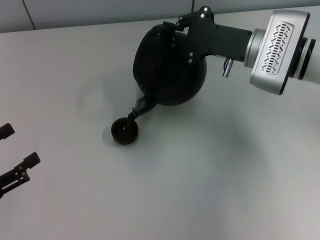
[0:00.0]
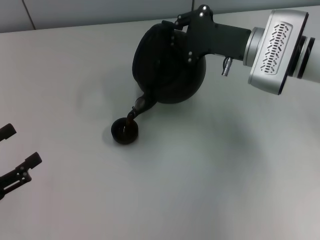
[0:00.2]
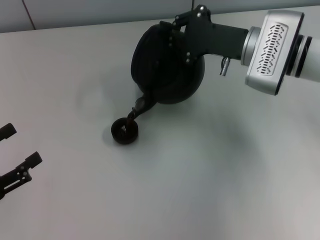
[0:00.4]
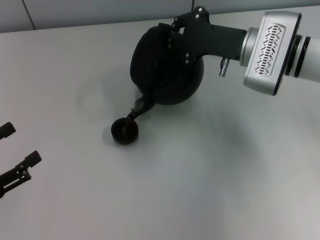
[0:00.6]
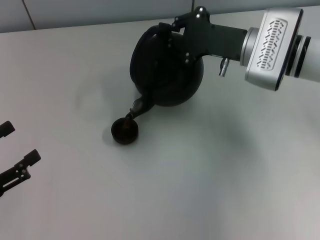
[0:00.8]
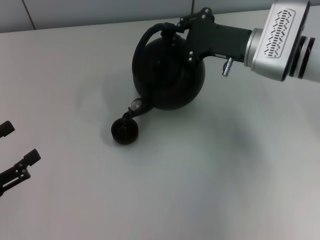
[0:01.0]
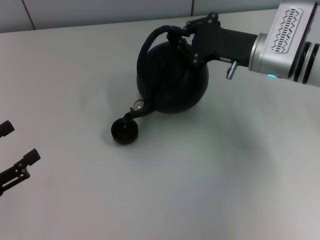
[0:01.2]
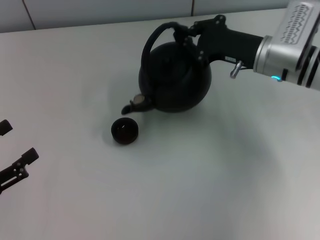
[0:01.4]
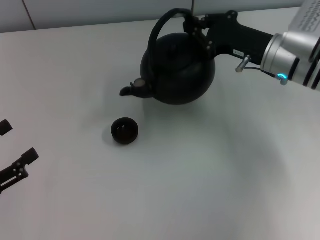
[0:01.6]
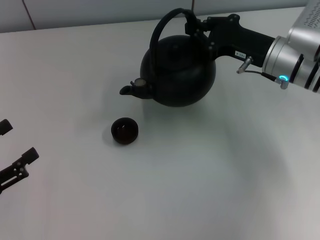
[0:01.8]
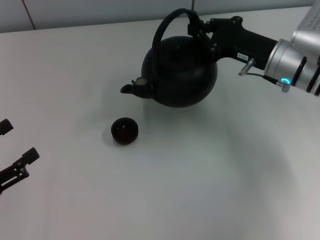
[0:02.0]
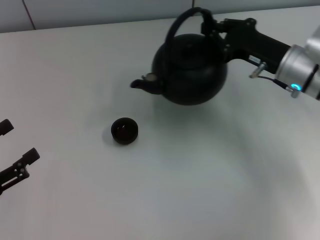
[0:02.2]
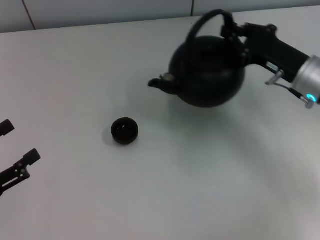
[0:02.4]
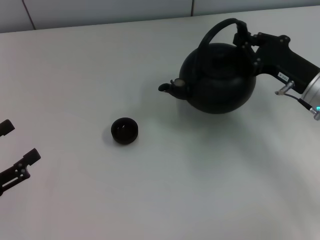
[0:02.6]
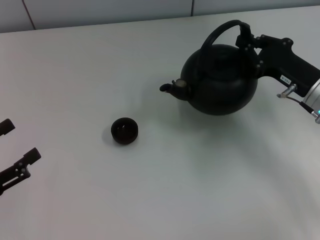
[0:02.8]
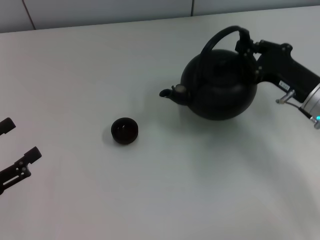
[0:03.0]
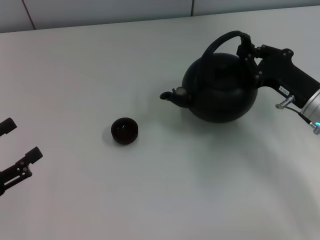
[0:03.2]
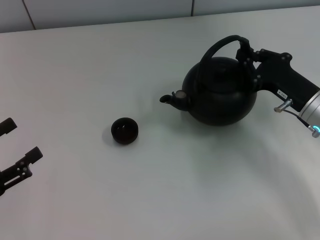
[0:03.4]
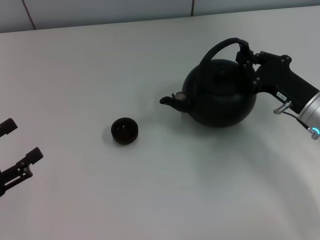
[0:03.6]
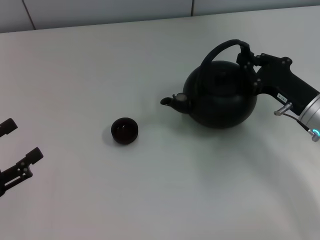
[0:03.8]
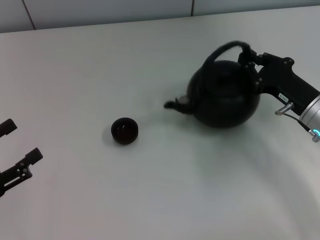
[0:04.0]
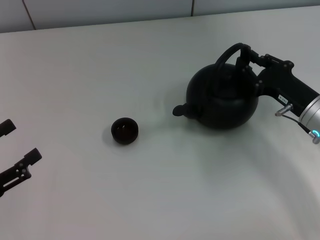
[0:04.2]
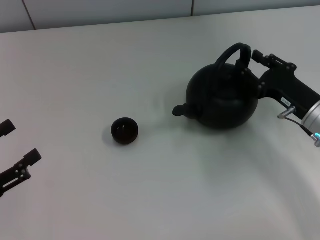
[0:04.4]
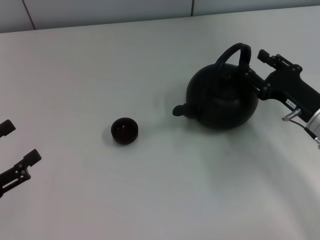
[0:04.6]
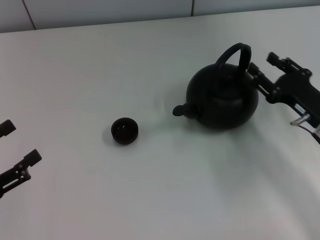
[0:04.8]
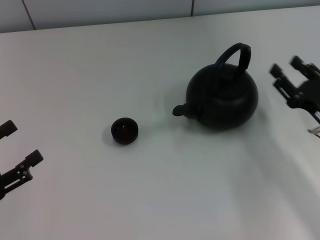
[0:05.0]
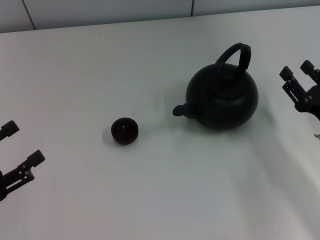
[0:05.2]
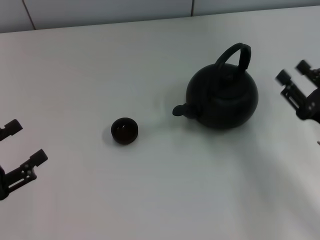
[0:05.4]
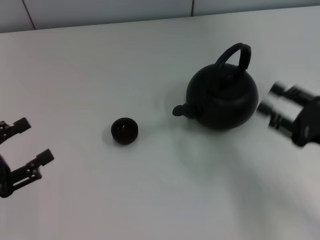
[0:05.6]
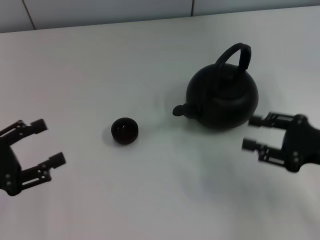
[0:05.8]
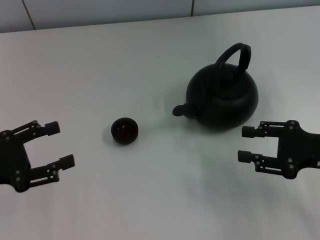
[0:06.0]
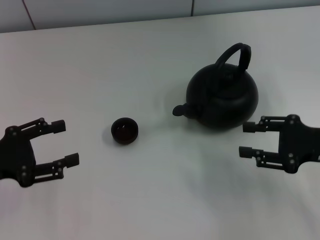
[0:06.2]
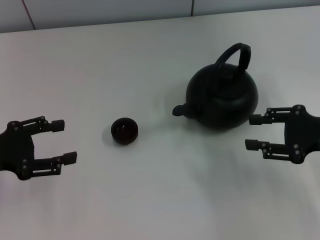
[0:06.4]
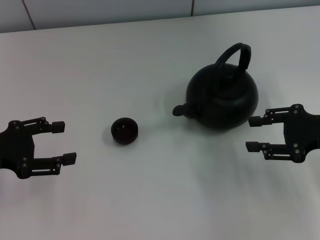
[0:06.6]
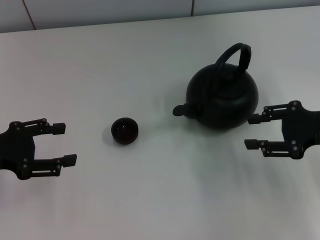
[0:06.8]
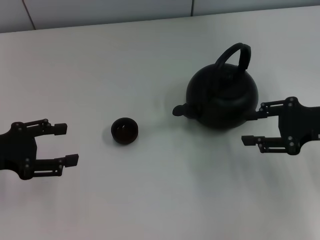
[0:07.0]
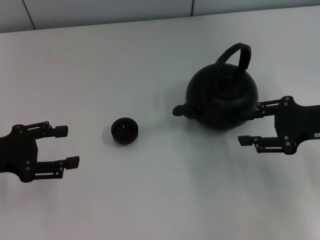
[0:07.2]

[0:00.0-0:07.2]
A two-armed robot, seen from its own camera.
Task of the whole recording: Grasp the handle of the teapot with one hand and pour tea into the teacup.
Step, 0:01.6 to 0:04.8: Put down the teapot with the right gripper.
0:01.4 to 0:02.8: The right gripper travels backward and to the right by approximately 10 cm.
0:02.8 to 0:04.4: There are only small adjustments of the grippers.
0:04.4 to 0:05.8: The right gripper goes about 5 cm backward.
0:05.8 to 0:07.2: Both grippers move forward, roughly 5 cm.
